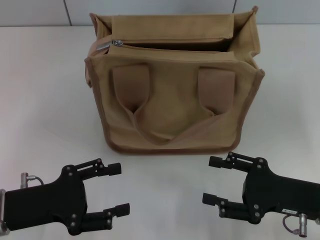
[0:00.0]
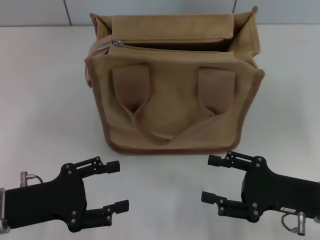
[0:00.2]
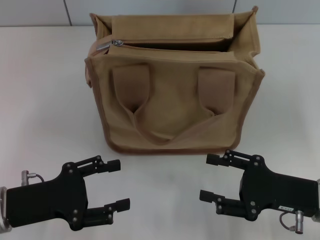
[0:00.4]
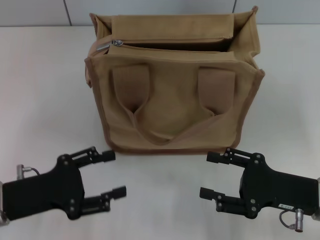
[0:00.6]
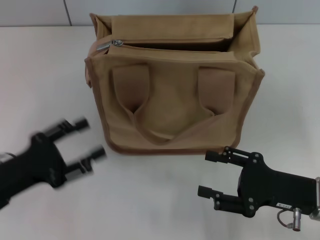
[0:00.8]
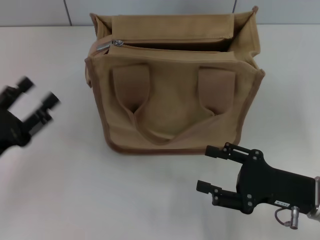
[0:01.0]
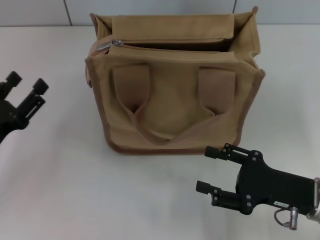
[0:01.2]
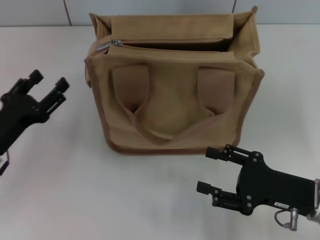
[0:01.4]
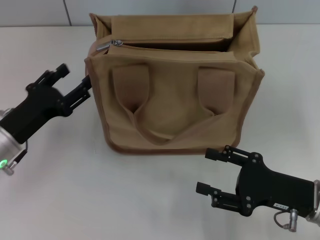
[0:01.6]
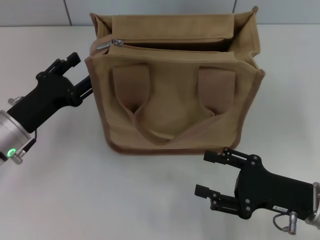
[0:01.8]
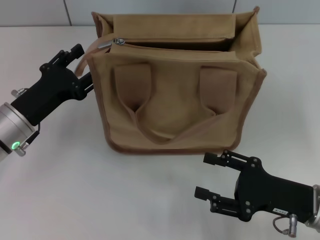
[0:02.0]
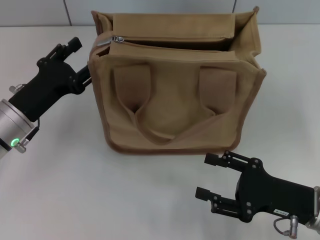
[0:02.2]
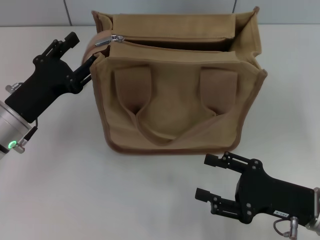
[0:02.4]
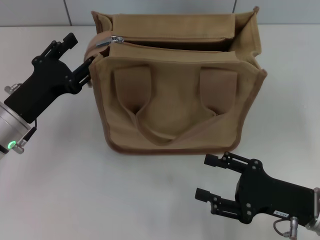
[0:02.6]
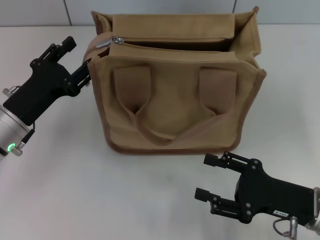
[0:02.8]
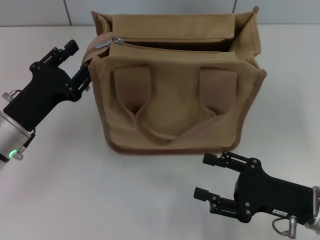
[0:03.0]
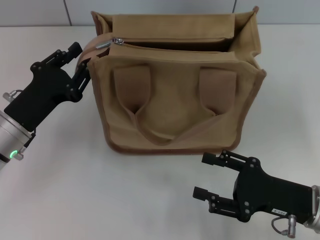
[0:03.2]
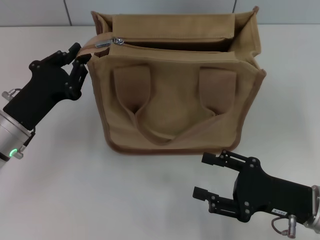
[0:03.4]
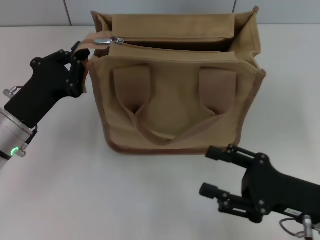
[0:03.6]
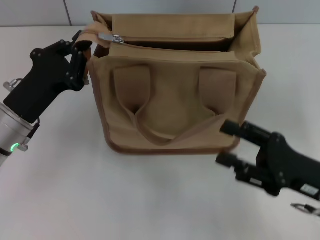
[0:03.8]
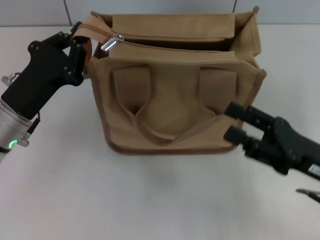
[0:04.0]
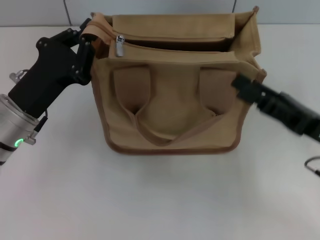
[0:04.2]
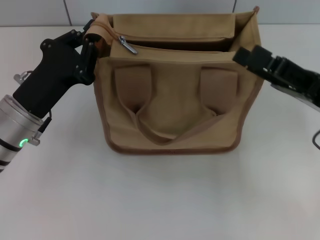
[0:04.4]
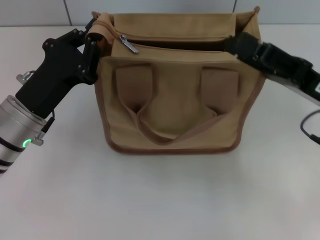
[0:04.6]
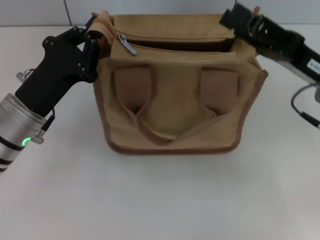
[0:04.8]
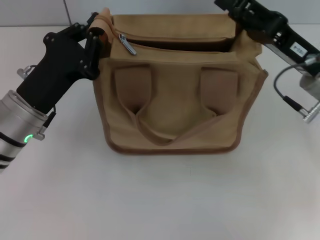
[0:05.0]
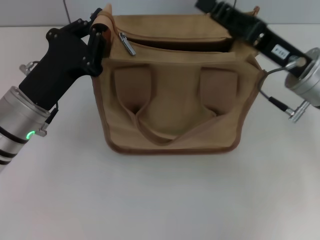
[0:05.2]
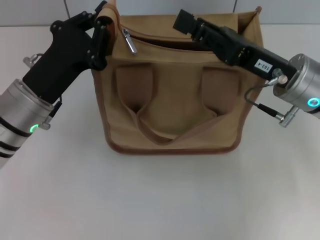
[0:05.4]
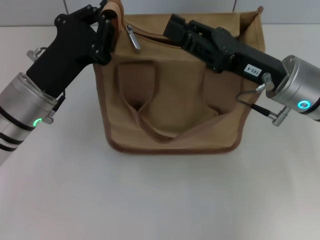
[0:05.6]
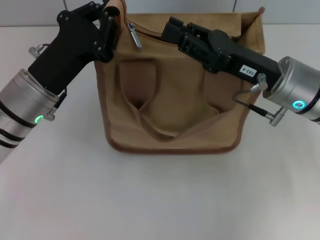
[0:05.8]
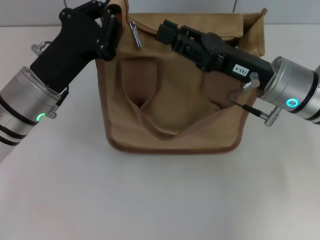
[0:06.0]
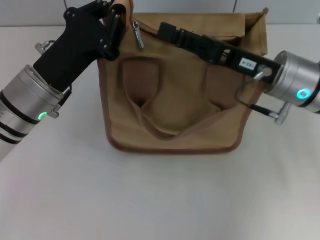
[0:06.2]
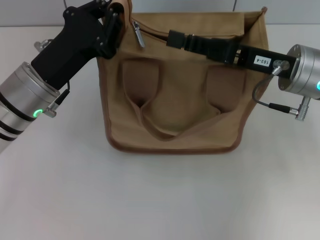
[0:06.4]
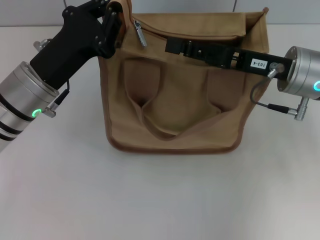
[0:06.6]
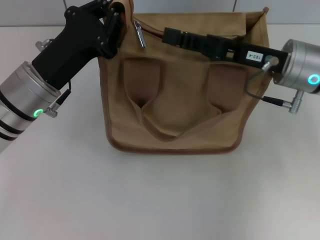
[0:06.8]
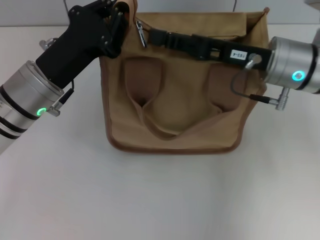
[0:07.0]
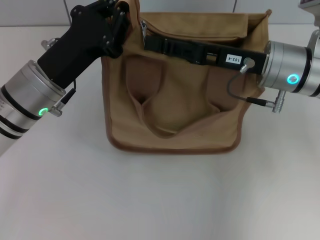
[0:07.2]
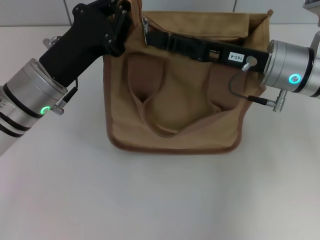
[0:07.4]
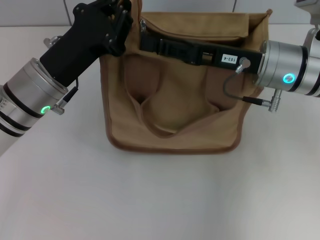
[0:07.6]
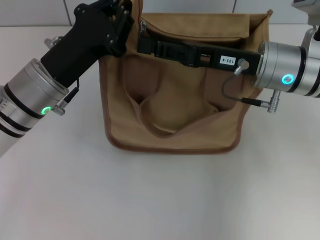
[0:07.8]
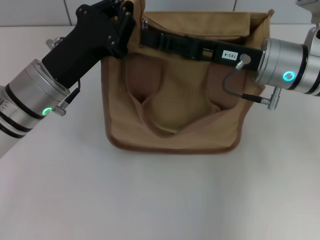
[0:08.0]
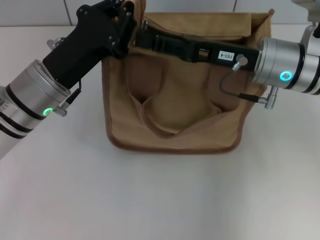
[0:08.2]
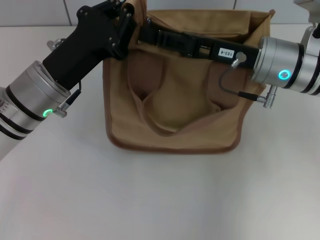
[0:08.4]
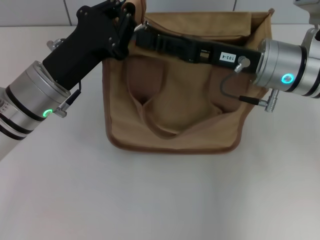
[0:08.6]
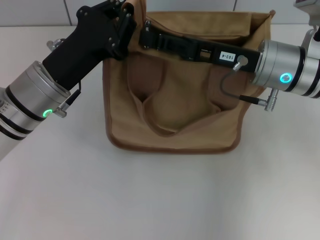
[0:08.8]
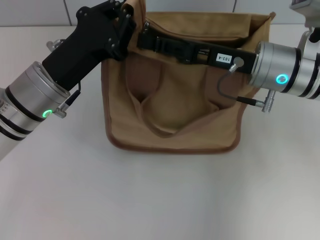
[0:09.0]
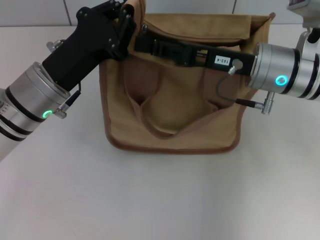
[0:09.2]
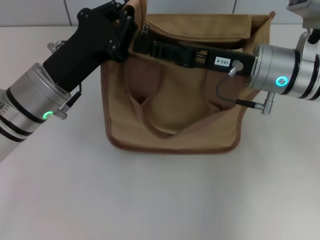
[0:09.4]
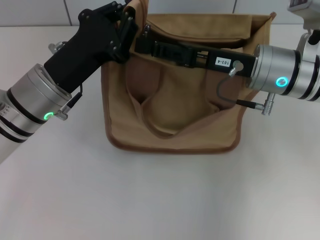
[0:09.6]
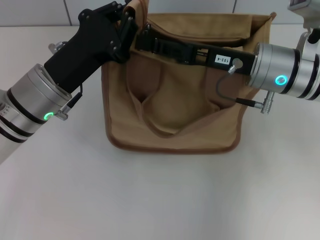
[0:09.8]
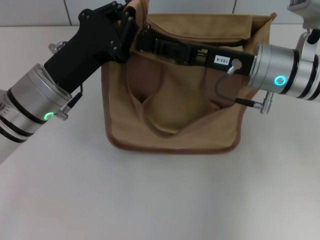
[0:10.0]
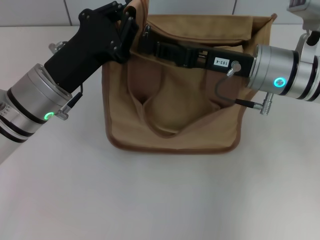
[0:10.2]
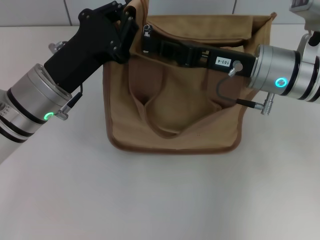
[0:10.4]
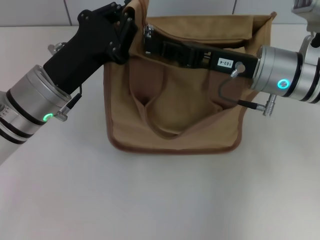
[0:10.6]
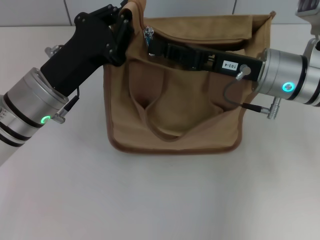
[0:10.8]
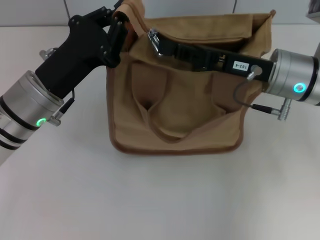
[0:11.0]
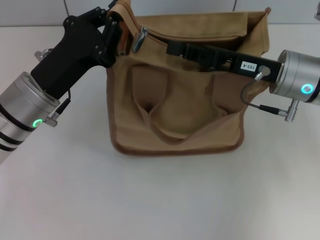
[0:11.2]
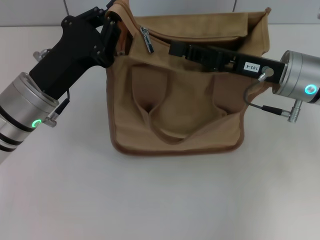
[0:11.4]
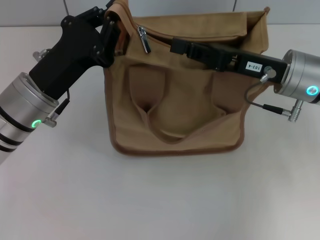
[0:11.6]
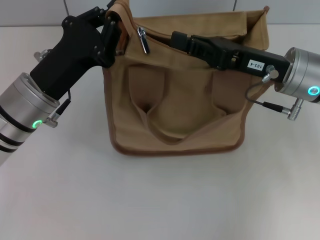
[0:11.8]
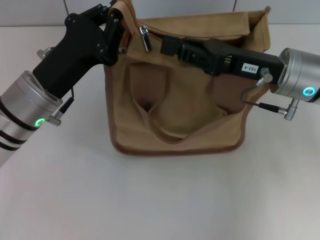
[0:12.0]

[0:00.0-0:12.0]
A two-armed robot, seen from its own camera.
0:00.0 to 0:01.6: The left gripper goes approximately 5 cm forward.
0:01.6 to 0:03.0: There are only small adjustments of the grippers.
0:03.0 to 0:04.4: The left gripper closes, while the right gripper heads upward and forward, covering approximately 10 cm.
0:04.4 to 0:06.0: The right gripper shifts roughly 10 cm to the left and forward, and closes up.
0:06.0 to 0:07.6: The grippers make only small movements.
0:07.6 to 0:10.4: Both grippers stay about where they are.
0:10.4 to 0:12.0: The grippers stay close to where they were, moving slightly.

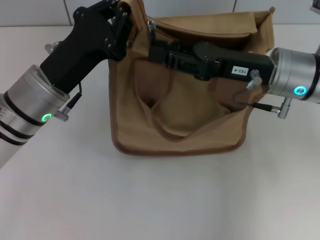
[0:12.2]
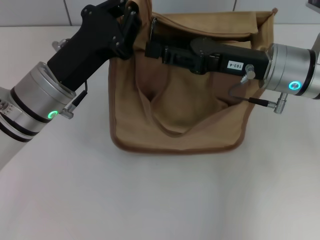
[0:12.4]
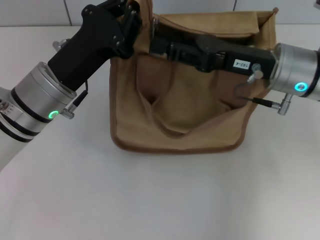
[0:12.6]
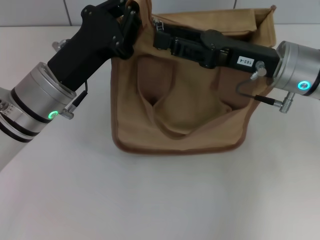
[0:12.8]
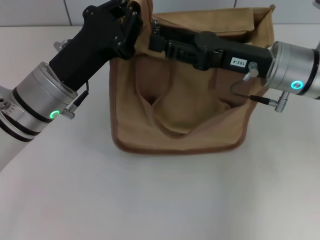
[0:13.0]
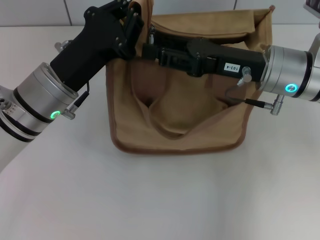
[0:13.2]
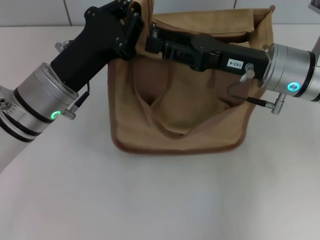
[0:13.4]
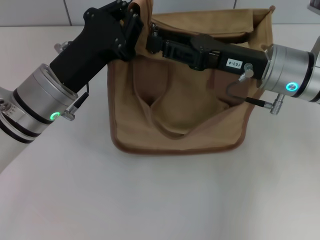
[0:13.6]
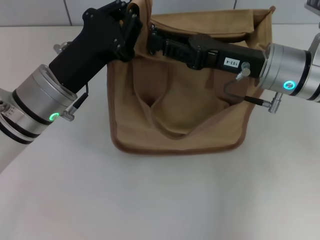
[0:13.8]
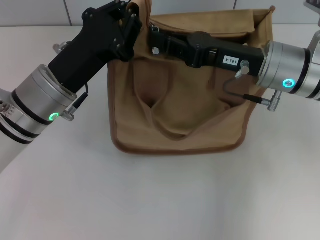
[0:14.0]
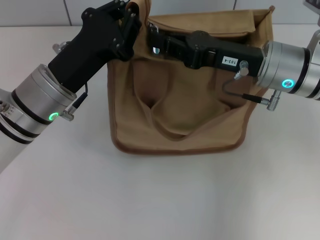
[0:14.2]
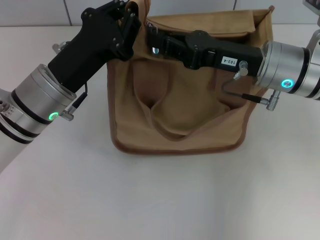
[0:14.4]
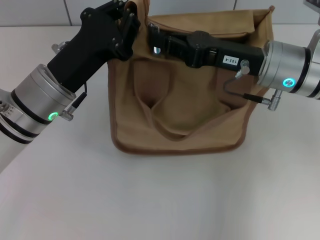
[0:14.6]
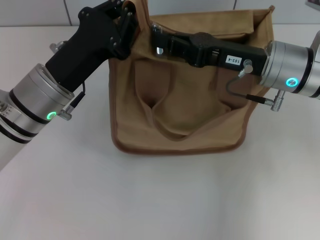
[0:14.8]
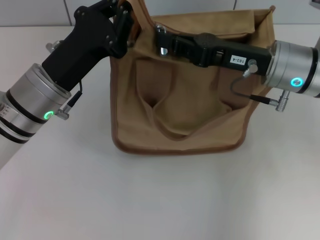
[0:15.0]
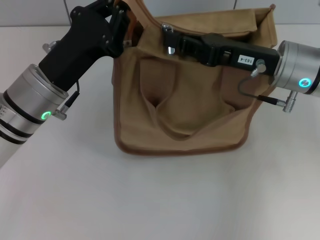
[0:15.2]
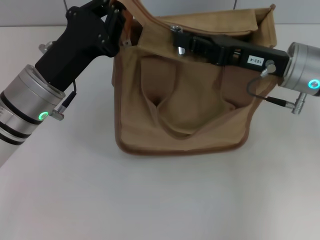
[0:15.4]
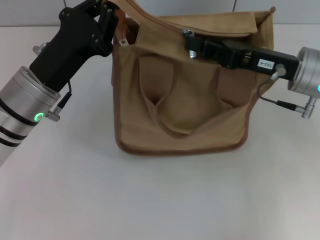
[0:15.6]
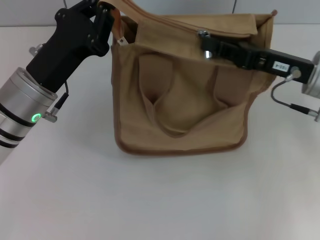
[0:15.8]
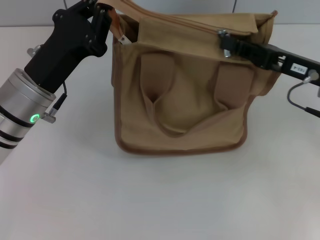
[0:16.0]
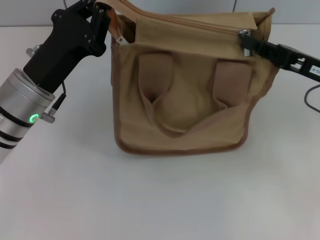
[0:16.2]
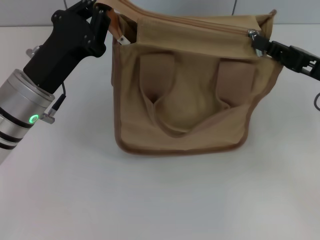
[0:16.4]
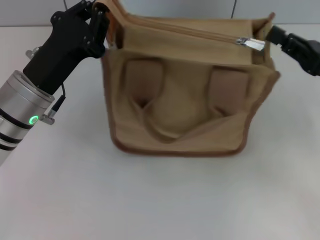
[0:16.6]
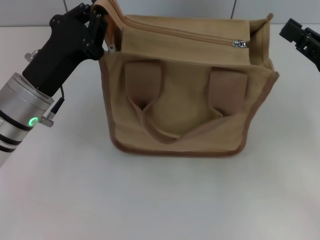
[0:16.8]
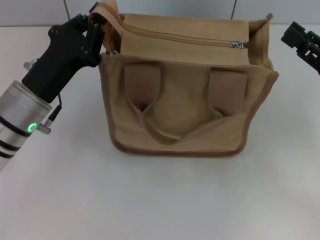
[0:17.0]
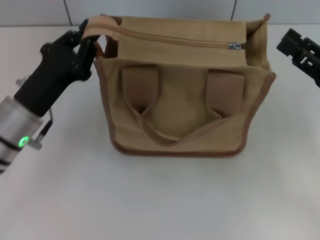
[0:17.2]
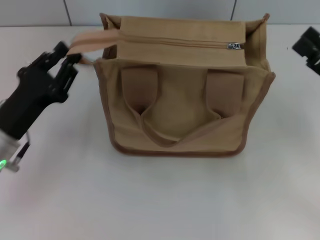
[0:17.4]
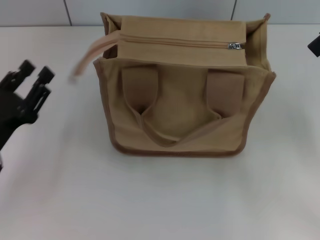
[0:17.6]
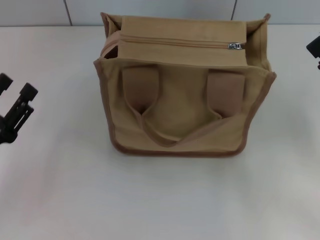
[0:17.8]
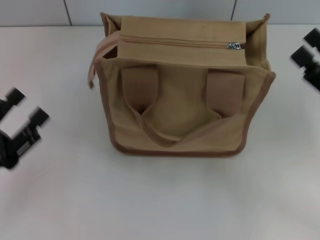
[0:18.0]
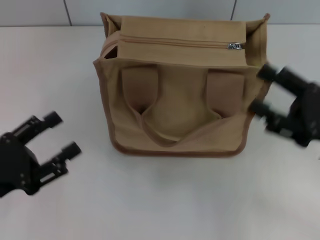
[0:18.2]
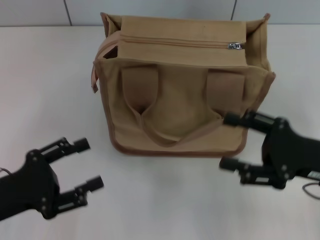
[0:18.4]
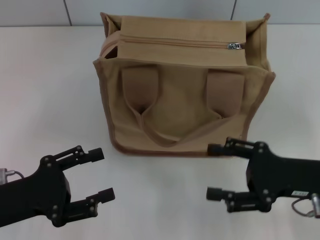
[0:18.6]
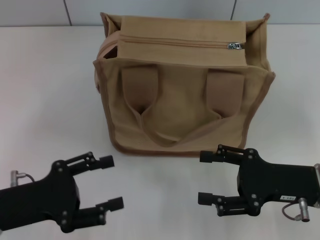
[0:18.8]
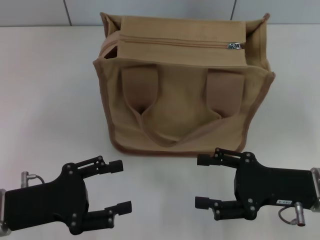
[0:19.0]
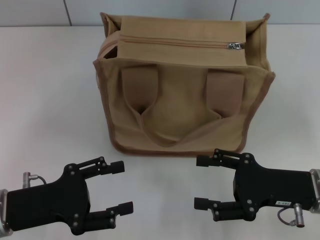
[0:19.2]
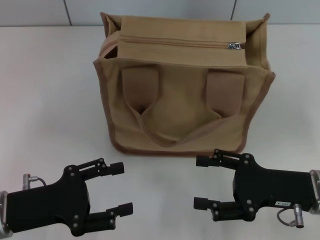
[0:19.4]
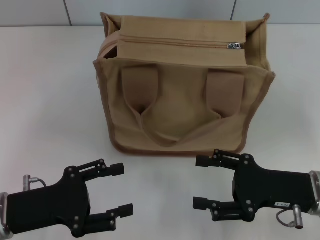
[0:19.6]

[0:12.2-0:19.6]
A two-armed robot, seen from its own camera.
Step, 0:12.2 to 0:16.4: Pull up the zipper with your right hand.
Step, 0:16.6 to 0:17.4: Grab the zipper with your left hand.
0:12.2 to 0:13.6: Both grippers stay about where they are.
0:13.6 to 0:15.2: The right gripper closes up.
0:15.2 to 0:16.6: The right gripper goes roughly 10 cm to the right and backward.
0:16.6 to 0:18.2: The right gripper goes roughly 5 cm backward, and opens its fingers; the left gripper travels backward and to the left by roughly 15 cm, and opens its fingers.
0:18.2 to 0:19.6: The right gripper changes place by about 5 cm.

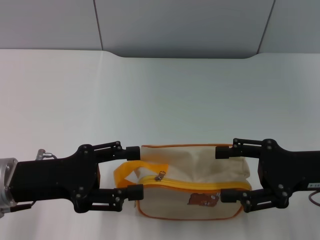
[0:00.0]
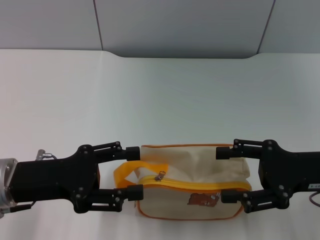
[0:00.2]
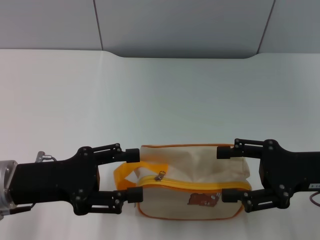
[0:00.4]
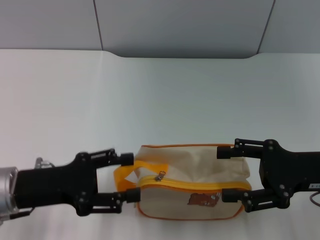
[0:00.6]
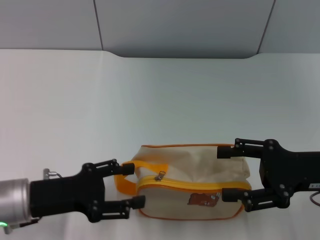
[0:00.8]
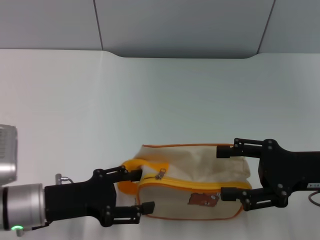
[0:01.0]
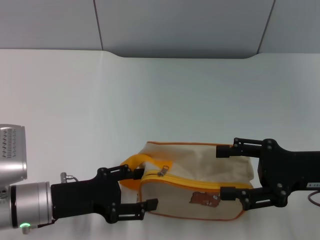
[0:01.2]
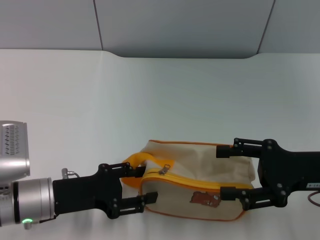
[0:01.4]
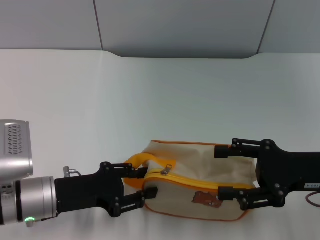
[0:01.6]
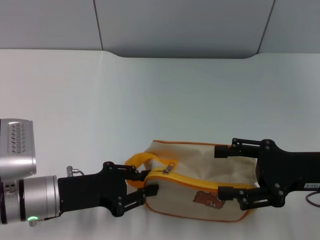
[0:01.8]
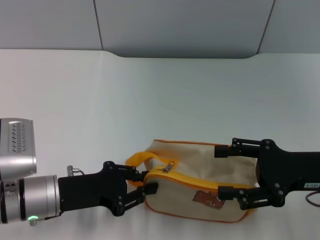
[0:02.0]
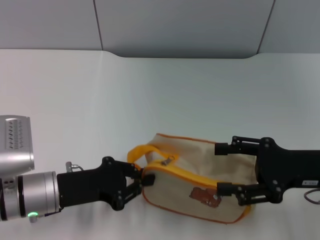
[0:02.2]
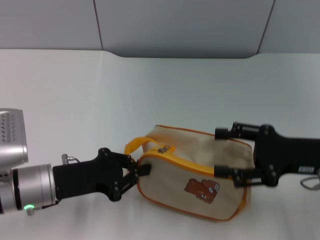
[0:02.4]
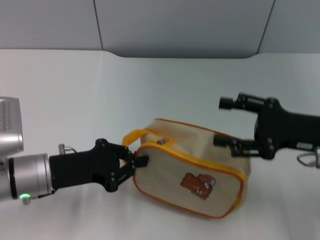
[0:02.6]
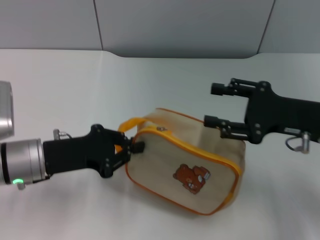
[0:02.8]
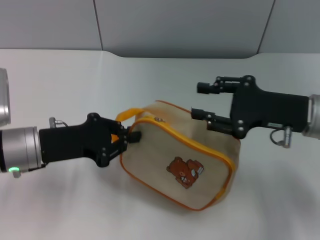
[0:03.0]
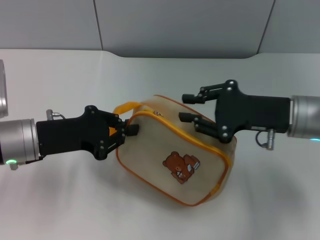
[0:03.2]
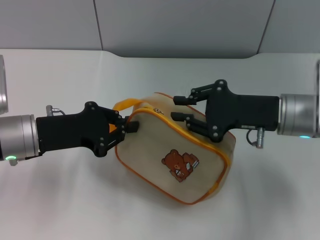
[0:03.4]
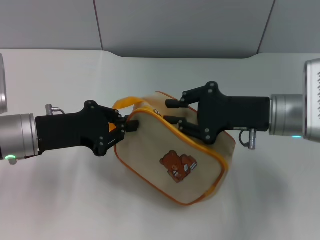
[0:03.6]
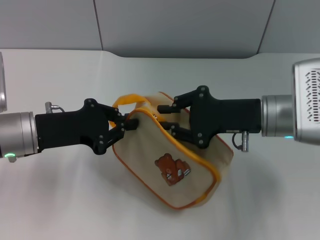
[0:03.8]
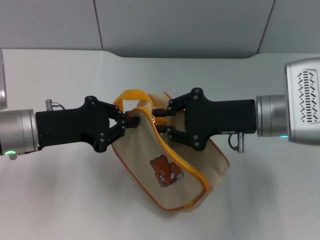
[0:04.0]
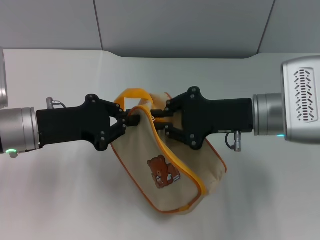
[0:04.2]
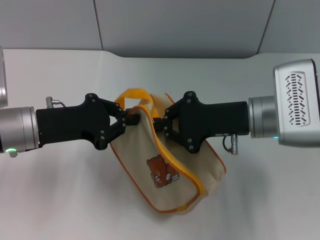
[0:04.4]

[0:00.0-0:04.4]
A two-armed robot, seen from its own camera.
Step, 0:00.0 to 0:03.0: Pick up the bag with left gripper.
0:00.0 to 0:01.4: The left gripper is displaced downward by about 5 cm.
0:01.4 to 0:03.0: The right gripper shifts roughly 5 cm forward. The left gripper ends up roughly 5 cm from where it was, and closes up.
0:03.0 to 0:04.4: The right gripper travels to the left by roughly 5 cm, and closes.
